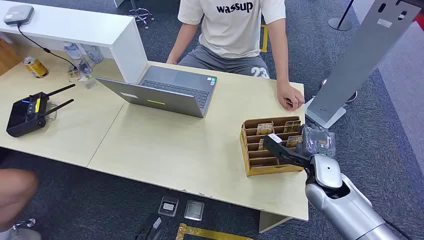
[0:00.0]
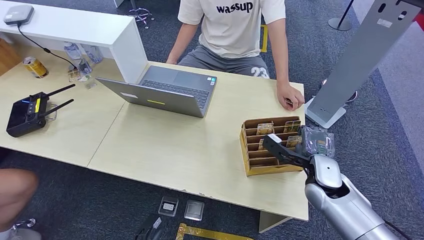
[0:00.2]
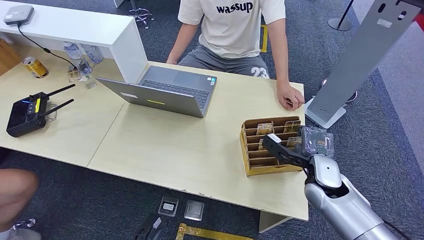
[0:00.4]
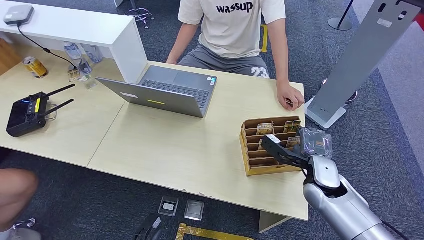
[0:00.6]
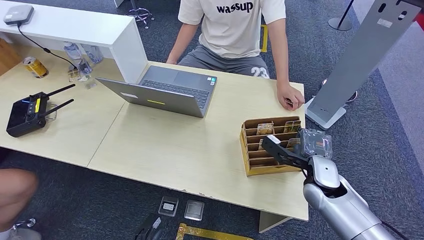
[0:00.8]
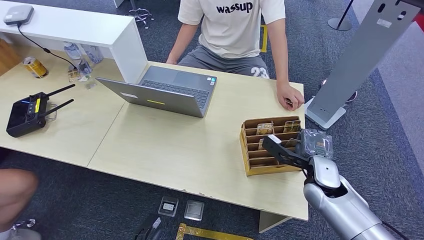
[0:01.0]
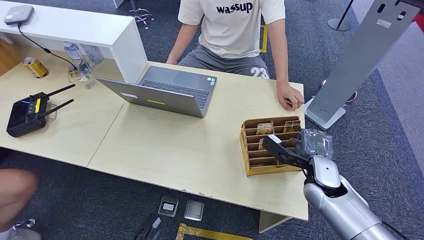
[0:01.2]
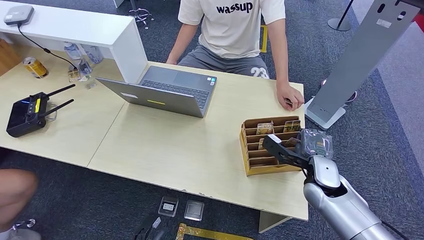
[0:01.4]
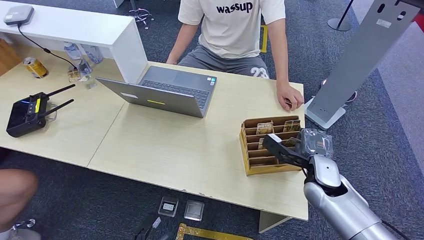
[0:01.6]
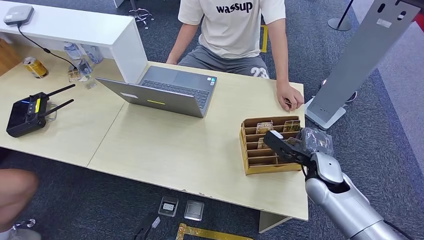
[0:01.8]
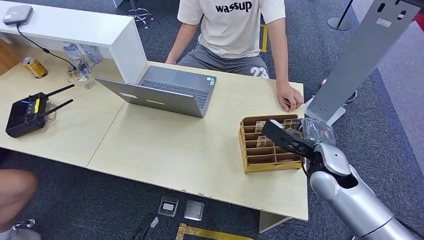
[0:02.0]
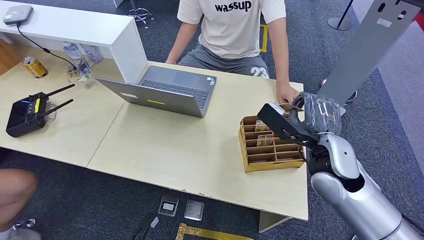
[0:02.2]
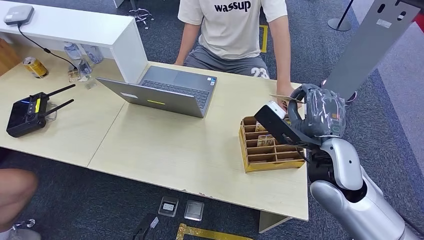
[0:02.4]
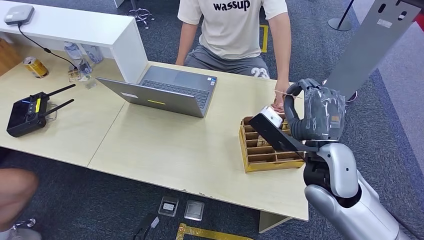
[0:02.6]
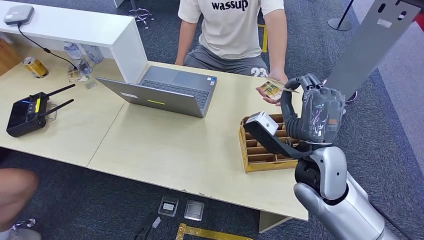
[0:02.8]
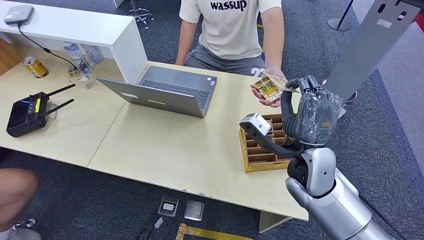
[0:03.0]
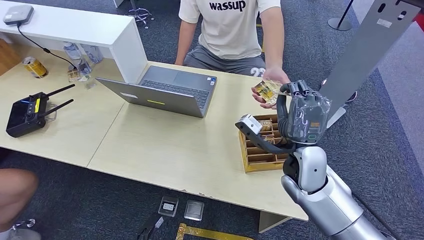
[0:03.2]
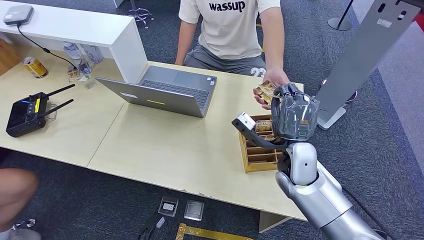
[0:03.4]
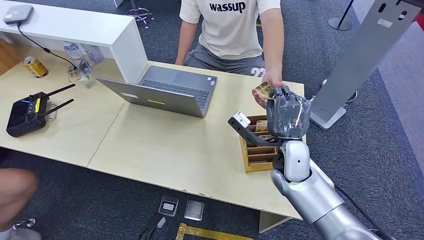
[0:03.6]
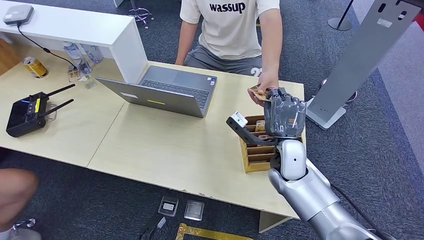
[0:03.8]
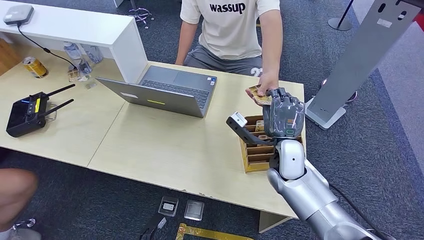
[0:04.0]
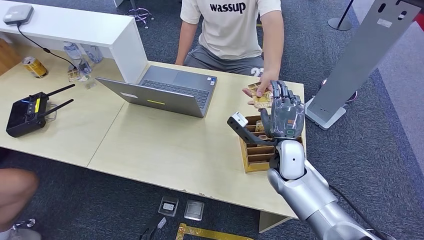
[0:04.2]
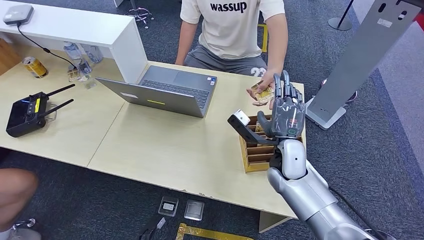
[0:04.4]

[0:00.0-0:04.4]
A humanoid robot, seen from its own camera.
Step, 0:00.0 to 0:01.8: Pick up the room card from the card holder.
Step, 0:02.8 to 0:04.4: Hand the room card to the target.
0:01.4 to 0:03.0: The right hand shifts approximately 15 cm to the left and upward.
0:03.0 to 0:04.4: The right hand shifts approximately 5 cm downward.

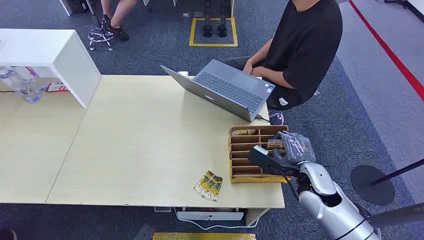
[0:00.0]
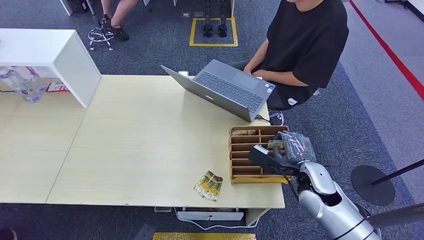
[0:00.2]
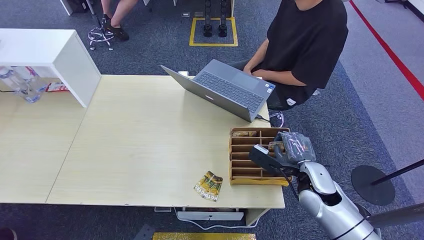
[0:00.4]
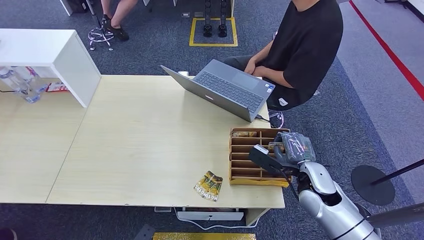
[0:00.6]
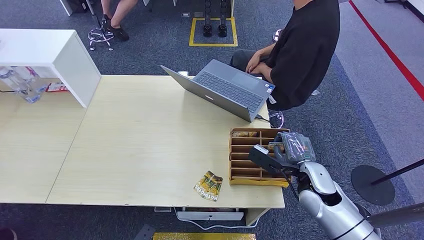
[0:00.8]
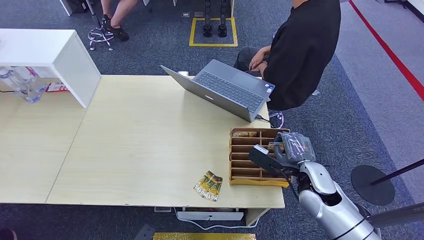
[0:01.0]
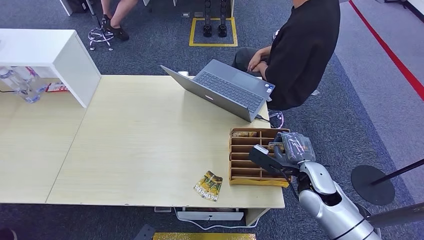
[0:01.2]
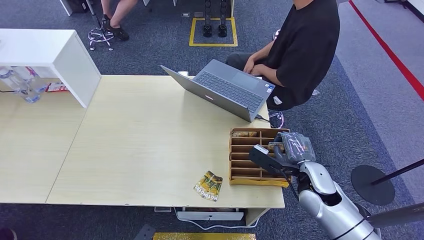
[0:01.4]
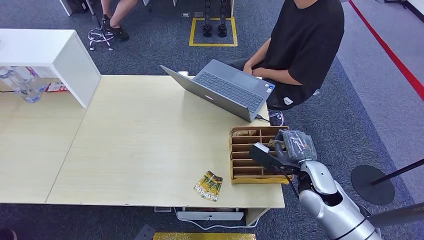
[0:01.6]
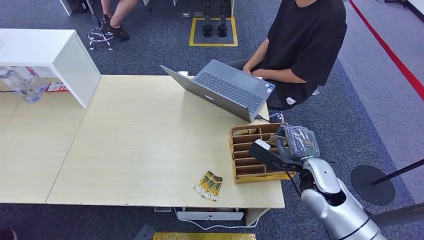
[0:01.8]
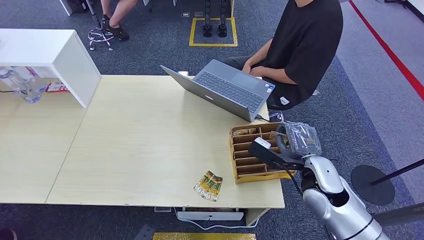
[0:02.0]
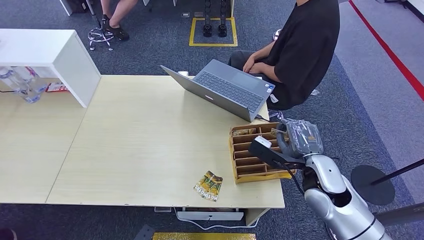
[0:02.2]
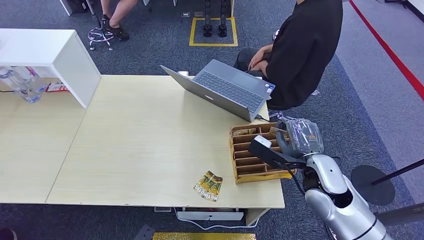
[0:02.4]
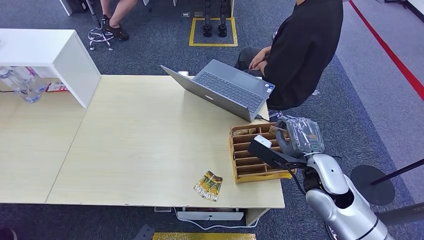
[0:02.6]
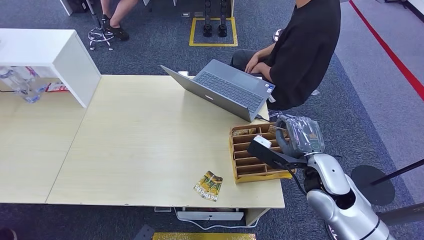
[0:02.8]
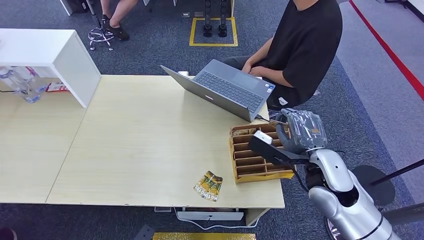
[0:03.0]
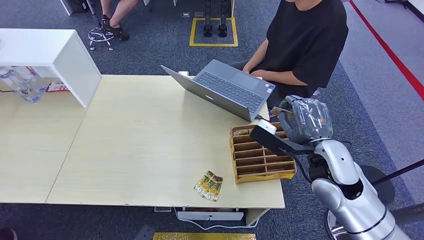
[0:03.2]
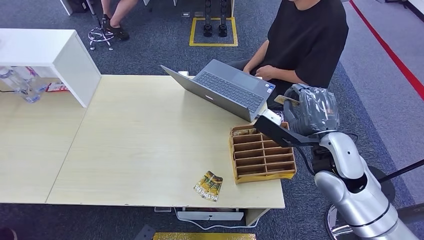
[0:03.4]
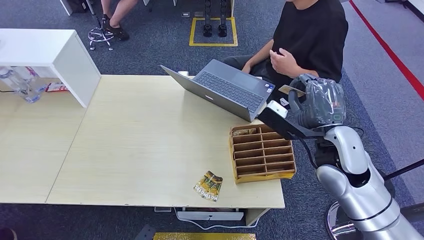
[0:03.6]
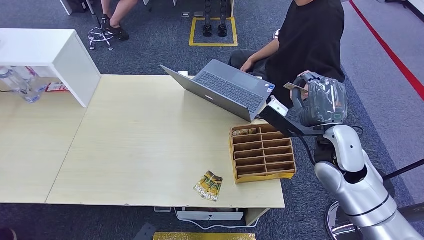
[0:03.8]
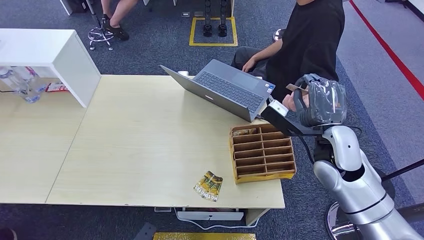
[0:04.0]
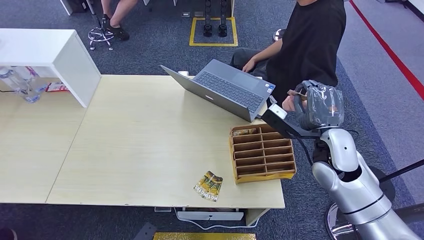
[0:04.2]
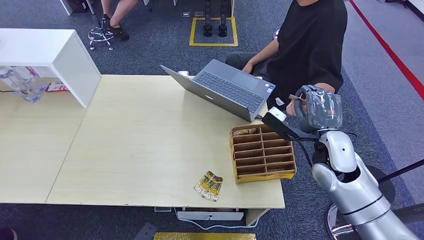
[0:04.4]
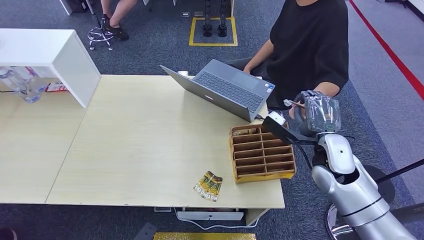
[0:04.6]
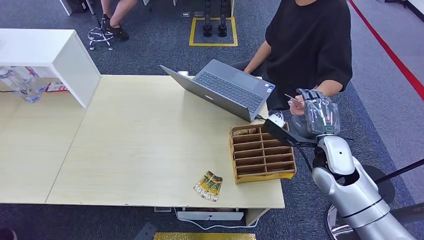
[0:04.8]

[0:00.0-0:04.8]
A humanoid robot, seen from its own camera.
Step, 0:00.0 to 0:02.6: Pick up the room card from the card holder.
Step, 0:02.8 to 0:04.8: Hand the room card to the target.
0:01.6 to 0:03.2: The right hand is displaced upward by about 10 cm.
0:03.2 to 0:04.8: The right hand ends up approximately 5 cm from where it was.
